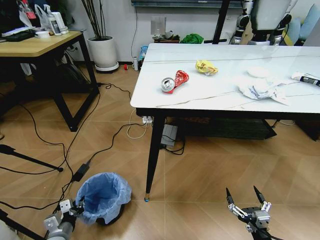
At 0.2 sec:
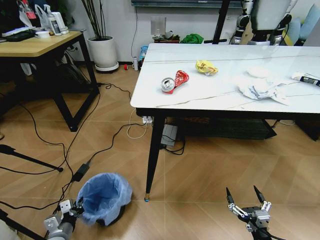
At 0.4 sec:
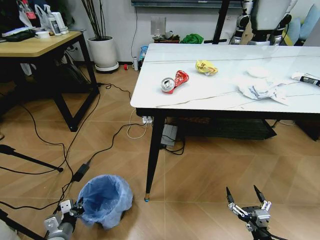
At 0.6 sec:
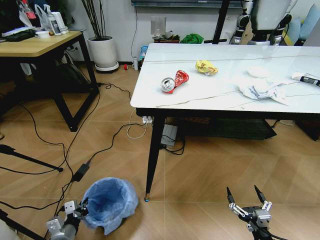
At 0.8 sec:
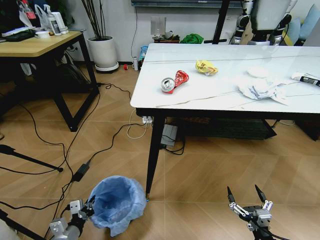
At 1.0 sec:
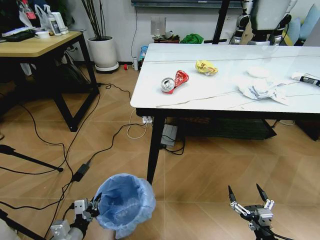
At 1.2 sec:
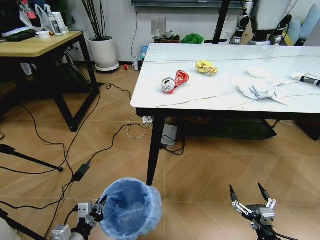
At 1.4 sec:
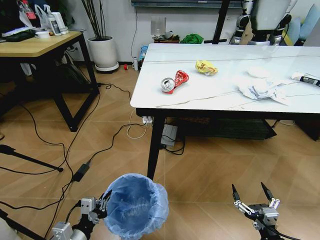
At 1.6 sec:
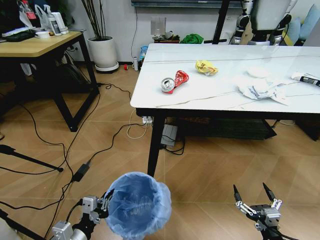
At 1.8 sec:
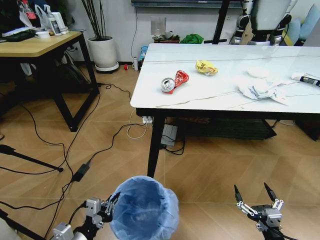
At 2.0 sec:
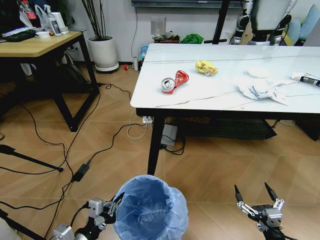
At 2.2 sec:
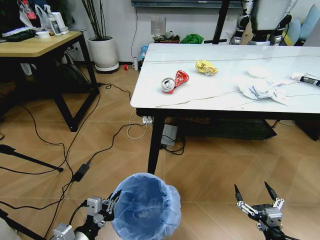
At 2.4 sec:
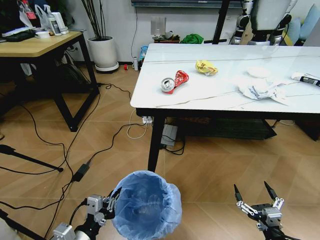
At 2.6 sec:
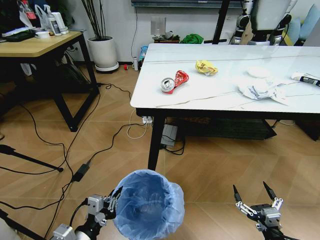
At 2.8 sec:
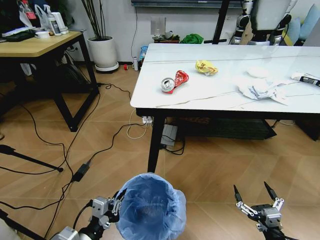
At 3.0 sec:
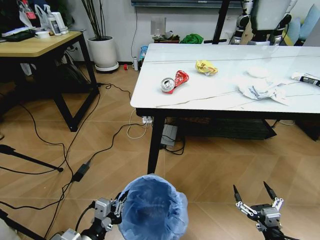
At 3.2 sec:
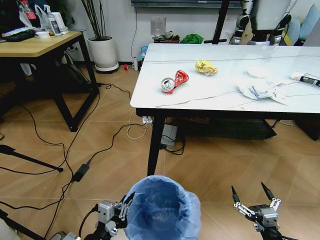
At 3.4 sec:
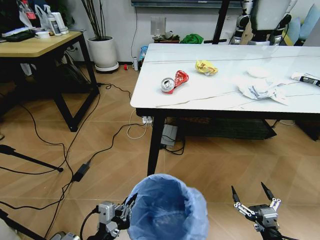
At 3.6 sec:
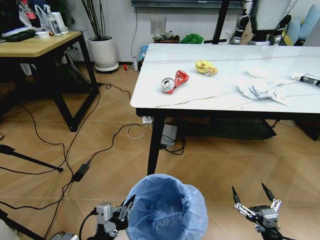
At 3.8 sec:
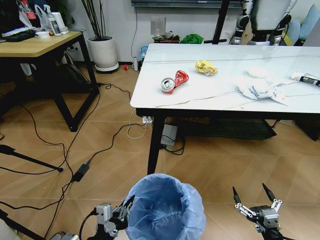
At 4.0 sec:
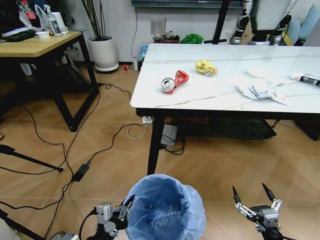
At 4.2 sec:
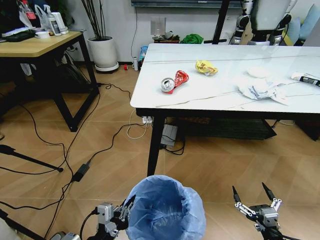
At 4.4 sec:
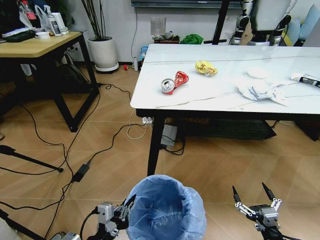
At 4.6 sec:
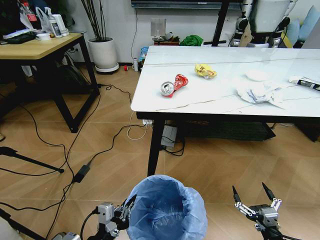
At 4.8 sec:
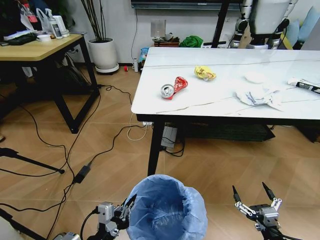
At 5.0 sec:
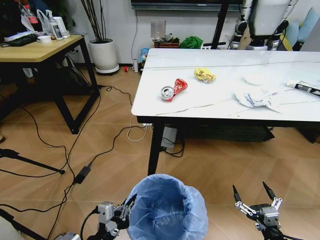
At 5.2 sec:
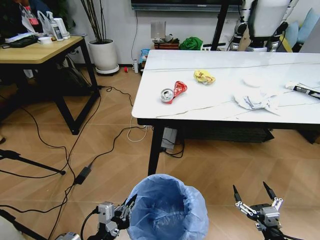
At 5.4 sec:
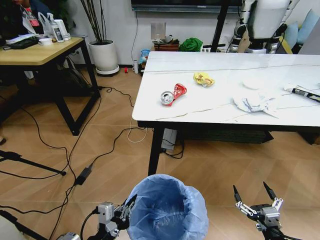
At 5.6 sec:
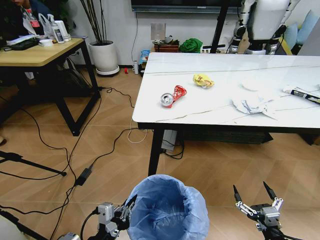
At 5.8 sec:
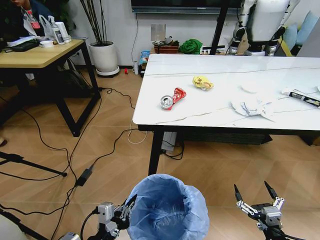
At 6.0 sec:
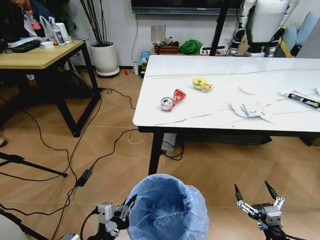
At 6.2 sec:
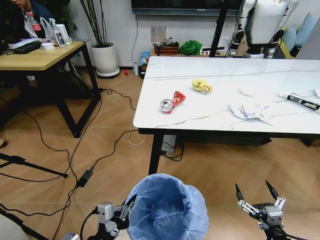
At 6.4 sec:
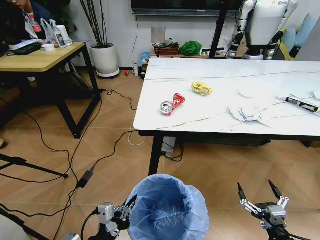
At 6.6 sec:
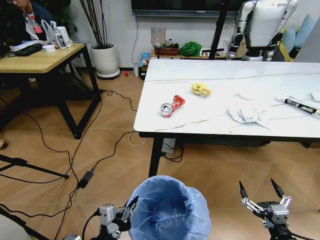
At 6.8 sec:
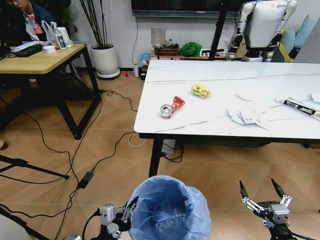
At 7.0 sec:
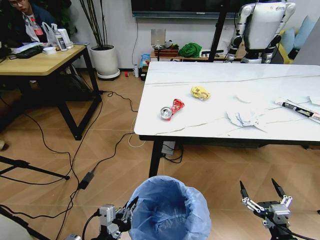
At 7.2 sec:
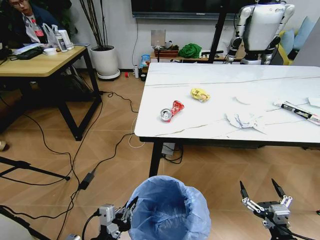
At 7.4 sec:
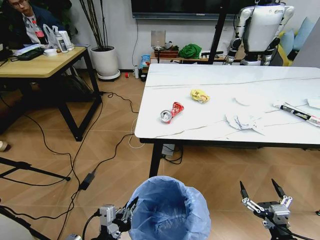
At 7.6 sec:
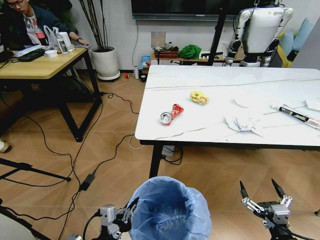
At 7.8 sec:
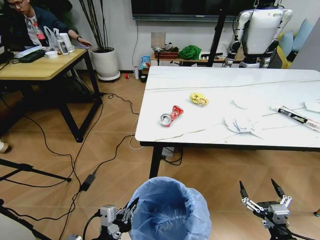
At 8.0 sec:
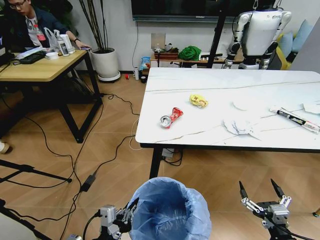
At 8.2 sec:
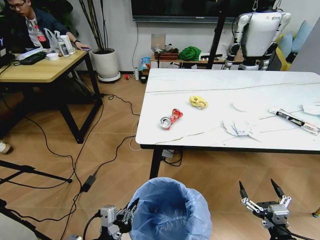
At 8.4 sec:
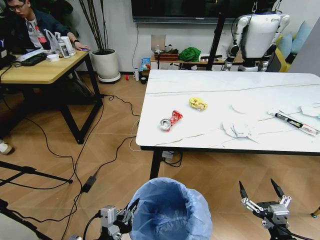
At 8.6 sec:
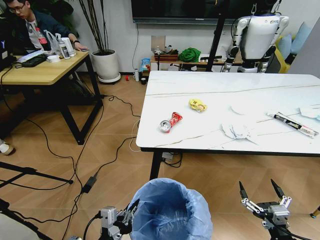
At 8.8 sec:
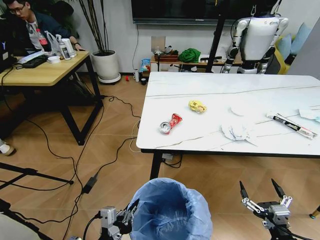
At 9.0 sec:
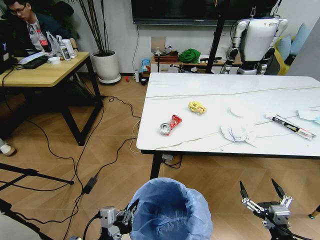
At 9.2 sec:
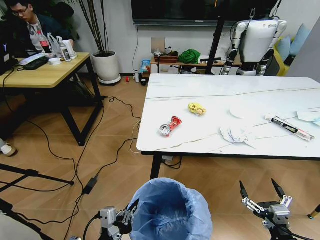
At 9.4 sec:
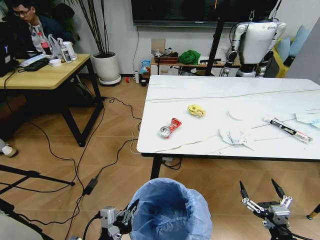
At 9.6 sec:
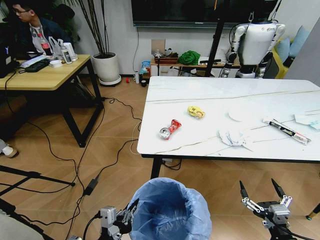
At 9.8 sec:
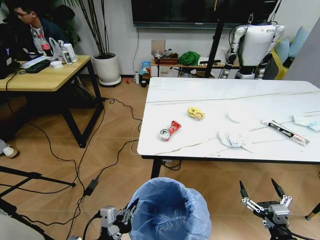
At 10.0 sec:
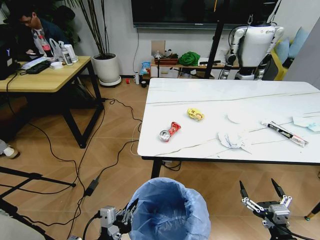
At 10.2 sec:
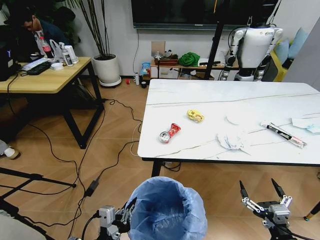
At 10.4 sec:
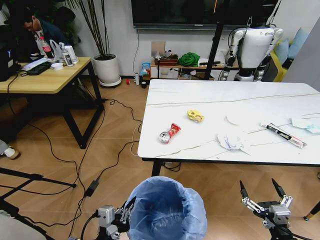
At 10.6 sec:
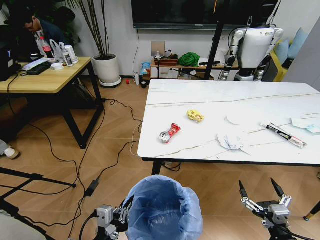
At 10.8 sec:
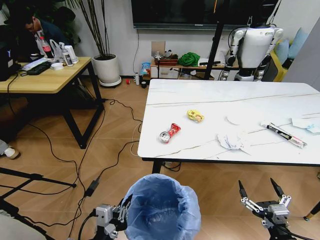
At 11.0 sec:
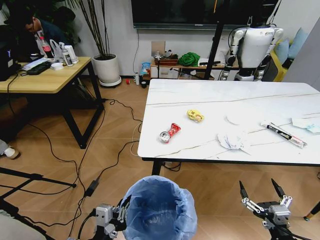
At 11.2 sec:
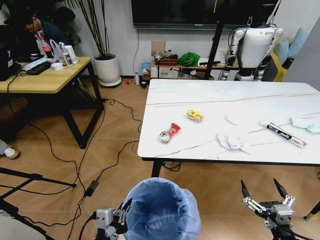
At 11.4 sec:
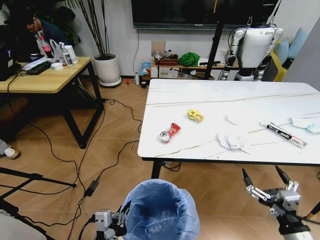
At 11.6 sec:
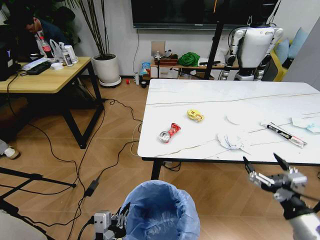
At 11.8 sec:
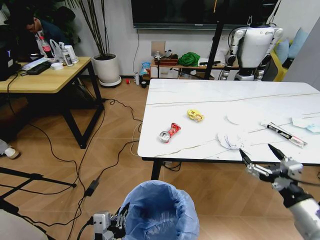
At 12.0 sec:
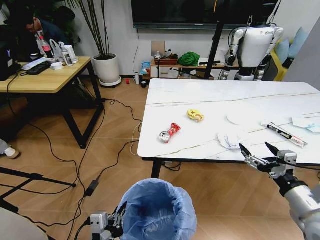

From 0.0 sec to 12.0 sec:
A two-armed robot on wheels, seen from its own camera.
Task of the whole recording: Pick up the trash bin and place the trash from the table into it.
From 0.0 sec to 1.6 sec: The left gripper is displaced upward, to the right and backward by roughly 15 cm.
From 1.6 sec to 3.0 sec: The left gripper moves some 5 cm.
From 3.0 sec to 4.4 sec: The grippers stay close to where they were, moving slightly.
From 10.4 sec to 12.0 sec: The right gripper shifts some 15 cm upward and forward.

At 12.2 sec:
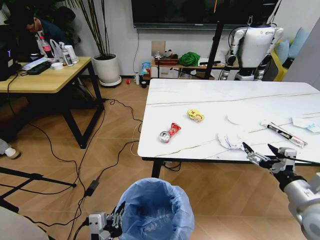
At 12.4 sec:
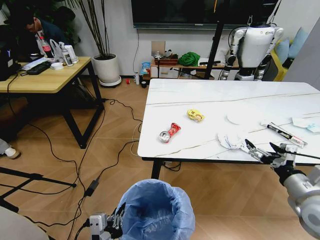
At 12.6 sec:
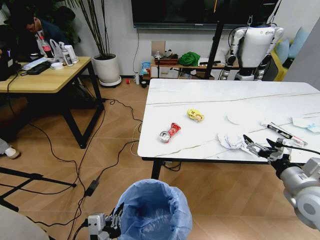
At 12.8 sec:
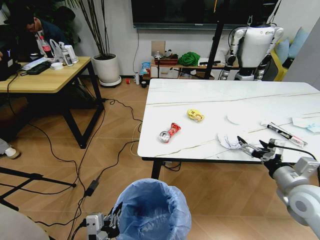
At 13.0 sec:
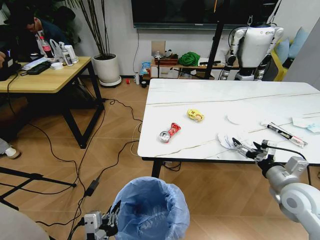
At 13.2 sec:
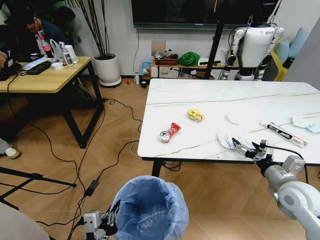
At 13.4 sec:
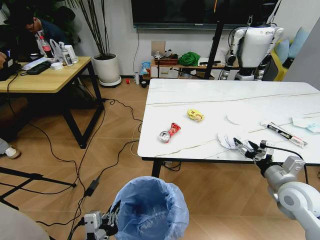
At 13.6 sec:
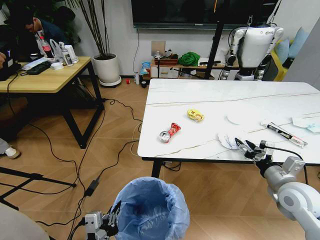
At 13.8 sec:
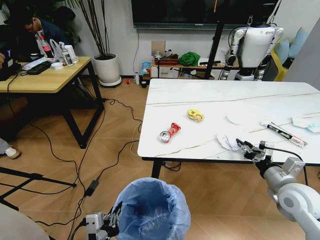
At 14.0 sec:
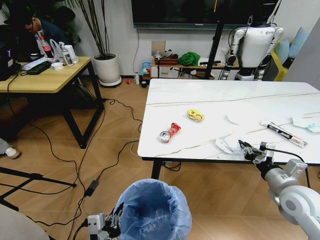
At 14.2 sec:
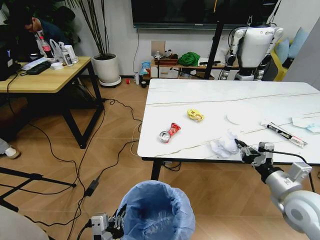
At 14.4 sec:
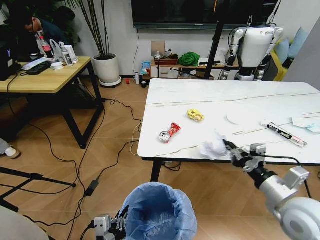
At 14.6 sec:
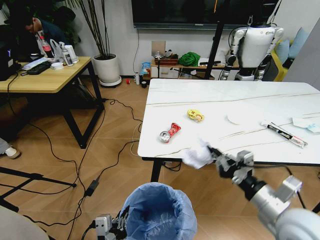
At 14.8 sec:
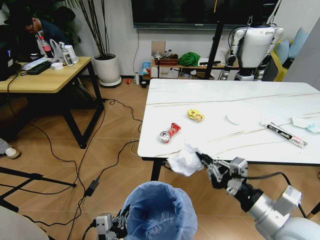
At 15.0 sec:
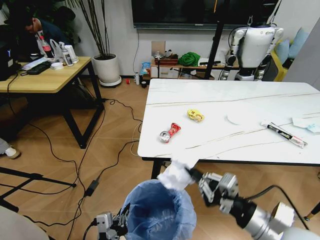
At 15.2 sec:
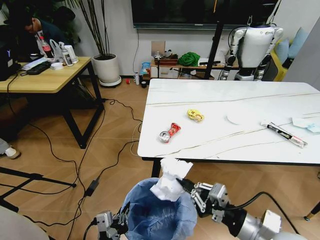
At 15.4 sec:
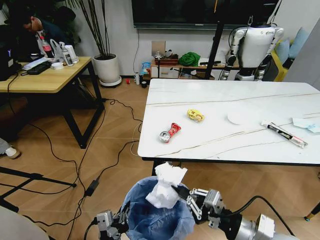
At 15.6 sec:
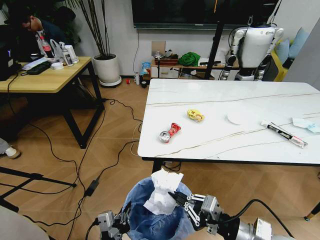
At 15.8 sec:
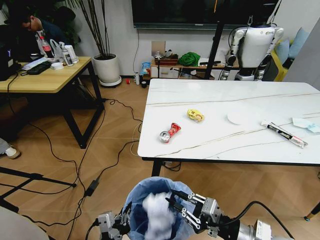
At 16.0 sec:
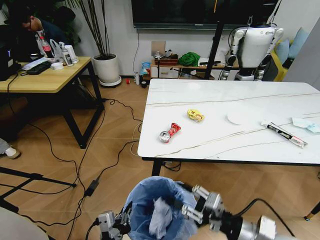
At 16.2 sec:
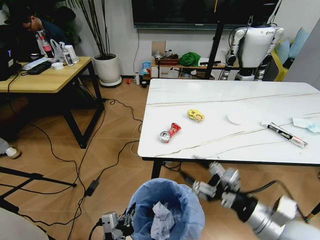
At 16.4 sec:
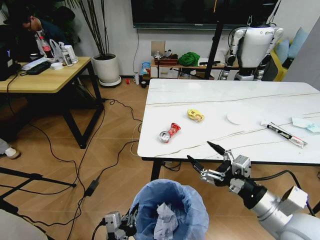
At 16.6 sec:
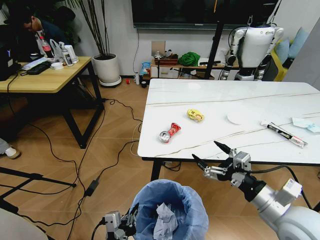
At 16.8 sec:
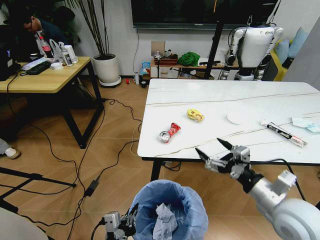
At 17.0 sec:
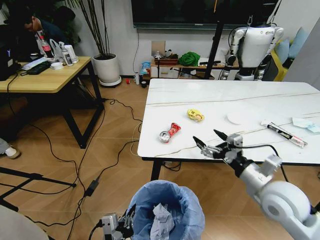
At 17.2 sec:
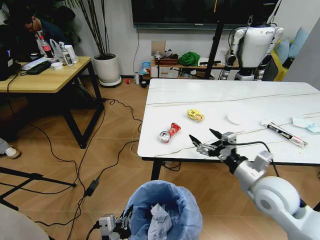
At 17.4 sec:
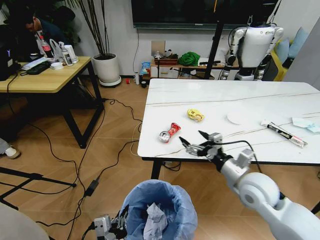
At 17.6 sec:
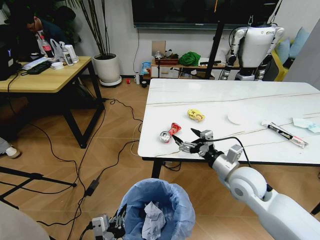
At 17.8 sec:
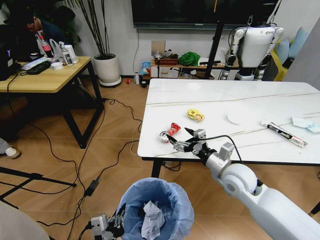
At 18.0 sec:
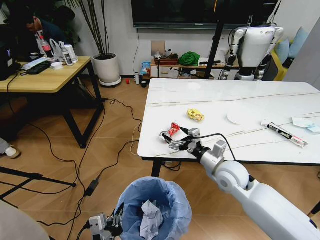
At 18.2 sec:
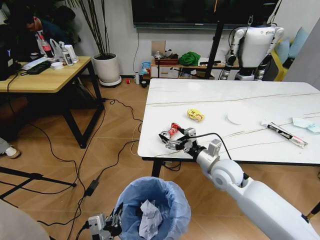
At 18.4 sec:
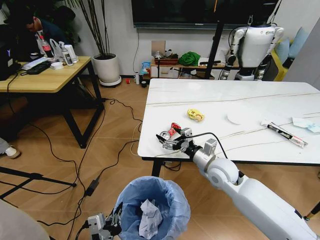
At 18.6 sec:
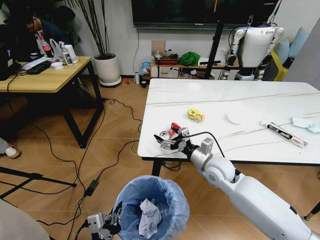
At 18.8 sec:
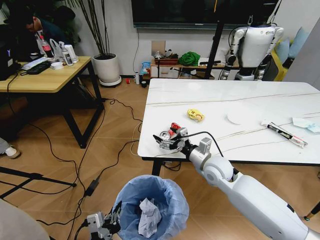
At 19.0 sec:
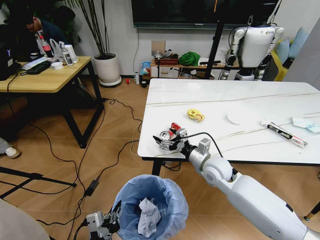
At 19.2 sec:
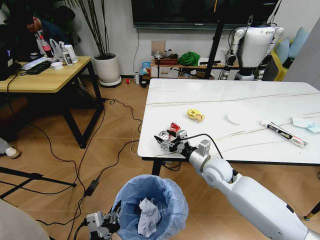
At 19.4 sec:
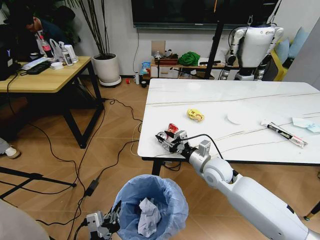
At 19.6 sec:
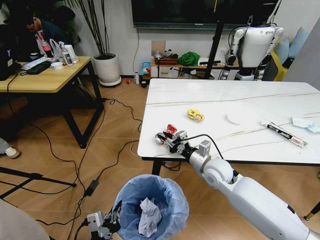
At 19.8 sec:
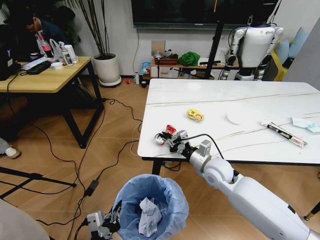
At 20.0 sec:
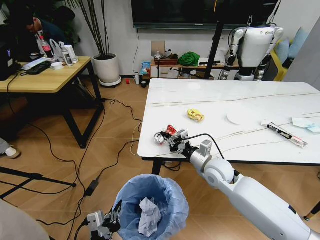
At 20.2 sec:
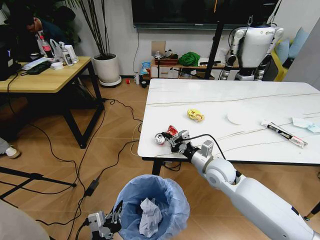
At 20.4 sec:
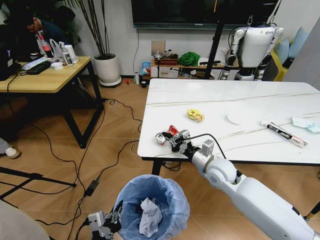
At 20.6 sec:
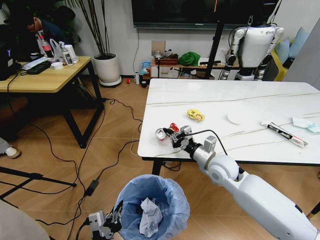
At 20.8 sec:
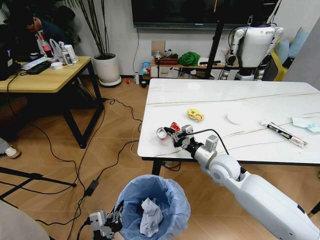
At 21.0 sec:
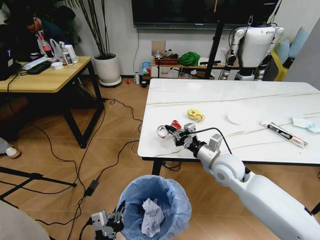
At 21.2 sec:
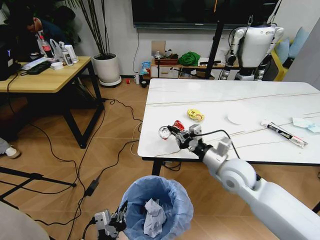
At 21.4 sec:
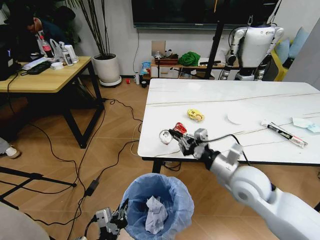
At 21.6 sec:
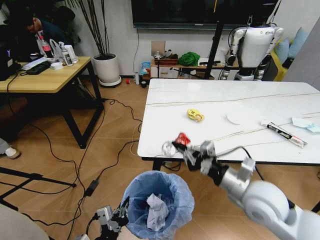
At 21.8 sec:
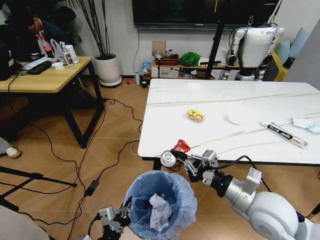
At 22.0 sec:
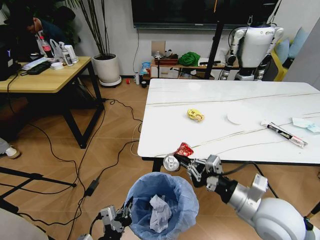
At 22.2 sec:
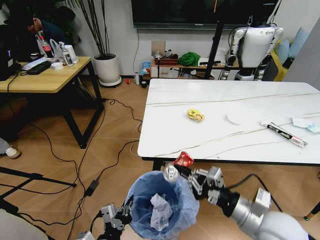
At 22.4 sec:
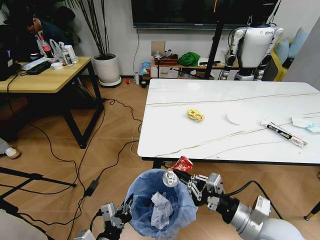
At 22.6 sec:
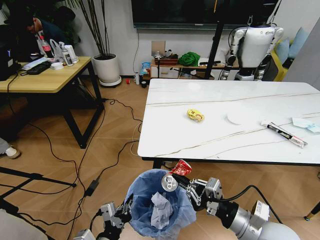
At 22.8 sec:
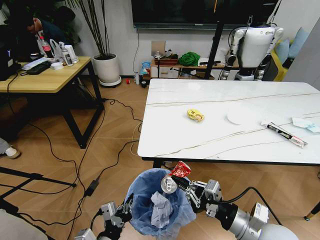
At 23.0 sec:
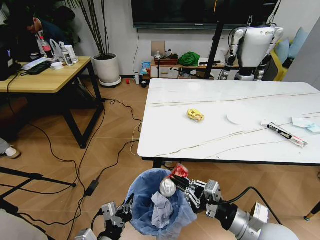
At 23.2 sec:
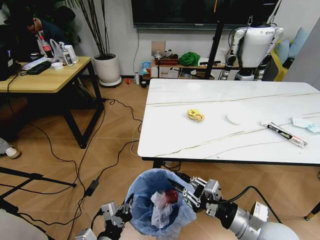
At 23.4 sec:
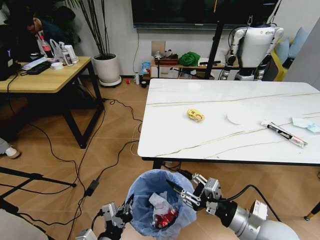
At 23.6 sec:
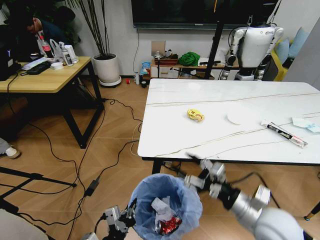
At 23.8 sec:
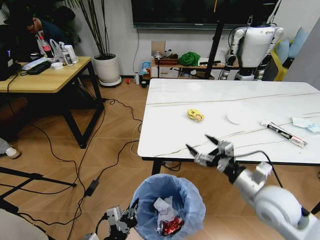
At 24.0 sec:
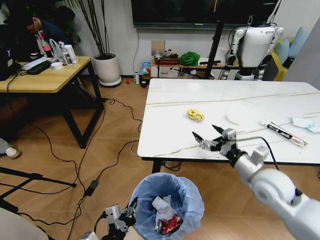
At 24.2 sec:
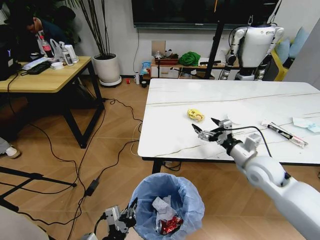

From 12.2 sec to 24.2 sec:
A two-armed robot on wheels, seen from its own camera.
Task of the whole recording: Pick up the trash bin and place the trash from the table into it.
From 12.2 sec to 13.8 sec: The right gripper is displaced forward by roughly 5 cm, and closes up.
From 13.8 sec to 15.2 sec: The right gripper shifts about 15 cm to the left and backward.
From 15.2 sec to 16.6 sec: The right gripper shifts by approximately 5 cm, and opens.
From 16.6 sec to 18.2 sec: The right gripper goes some 20 cm forward and to the left.
From 18.2 sec to 19.8 sec: The right gripper closes its fingers.
From 19.8 sec to 21.2 sec: The right gripper shifts approximately 5 cm upward.
From 21.2 sec to 22.6 sec: The right gripper shifts roughly 15 cm backward.
From 22.6 sec to 24.2 sec: The right gripper moves forward, approximately 20 cm, and opens.
